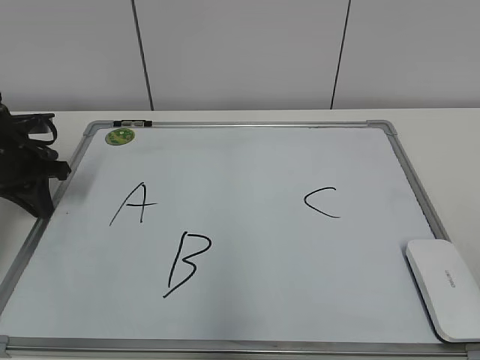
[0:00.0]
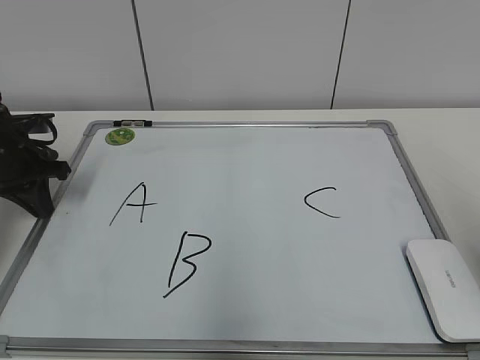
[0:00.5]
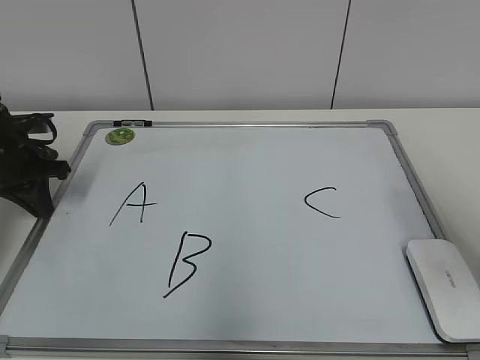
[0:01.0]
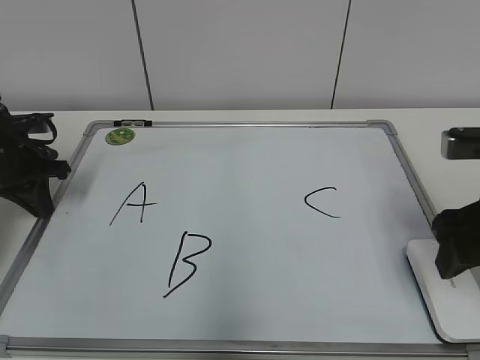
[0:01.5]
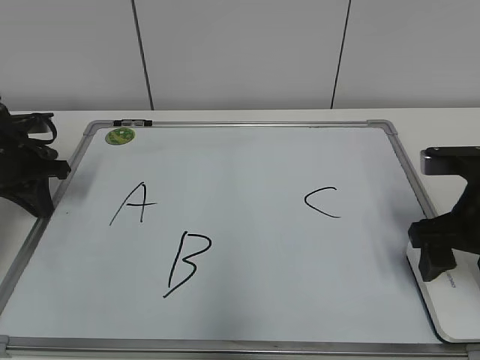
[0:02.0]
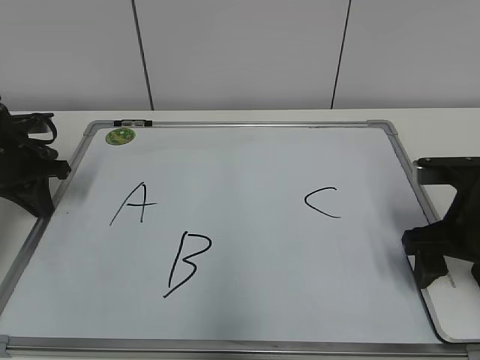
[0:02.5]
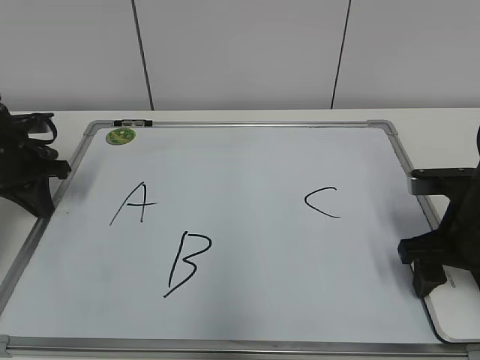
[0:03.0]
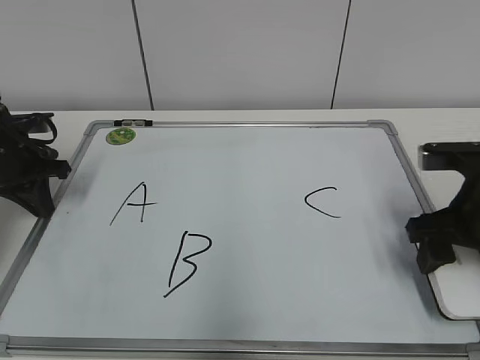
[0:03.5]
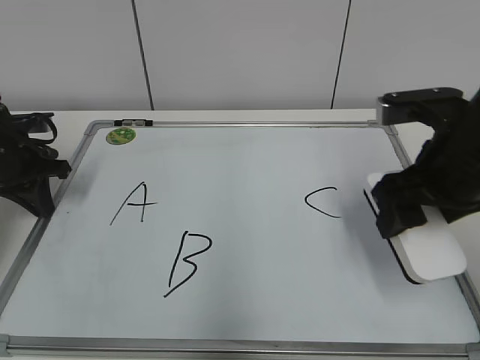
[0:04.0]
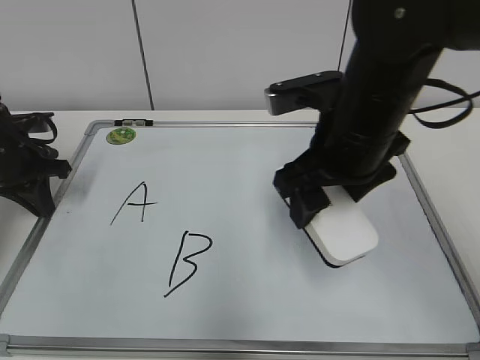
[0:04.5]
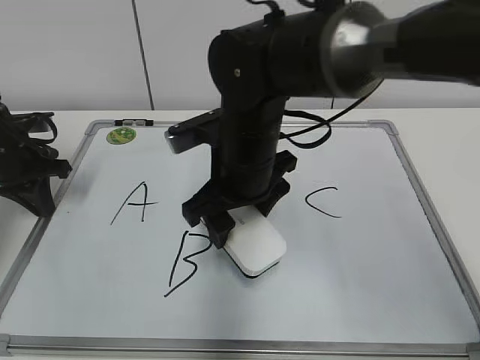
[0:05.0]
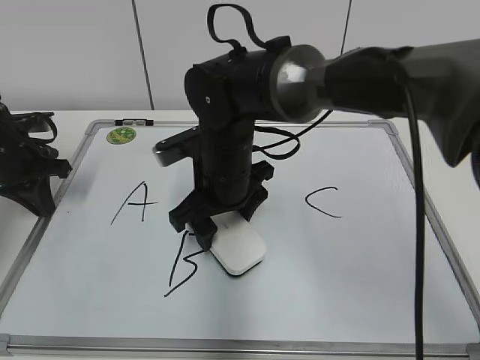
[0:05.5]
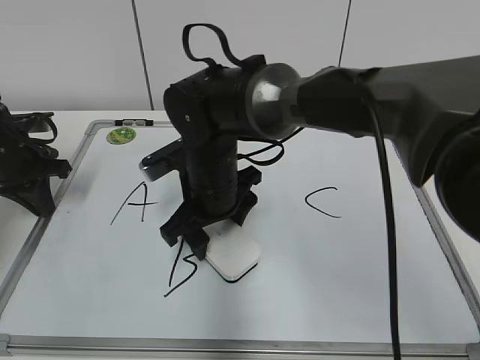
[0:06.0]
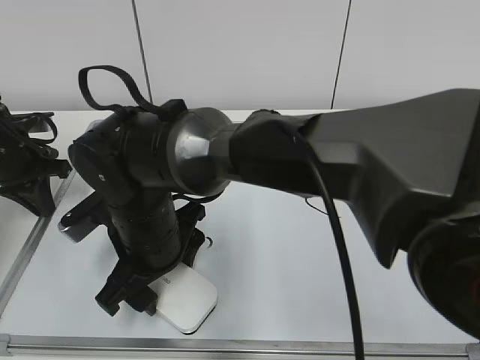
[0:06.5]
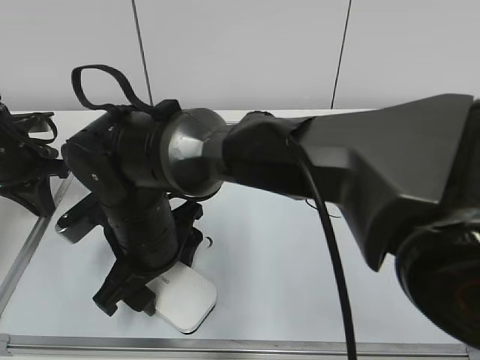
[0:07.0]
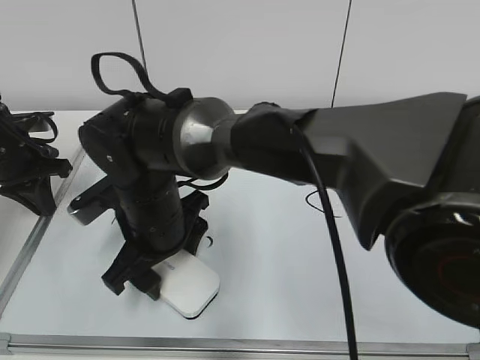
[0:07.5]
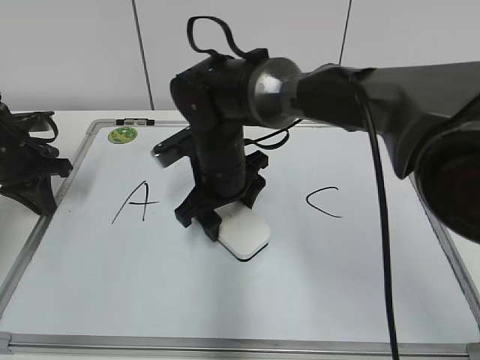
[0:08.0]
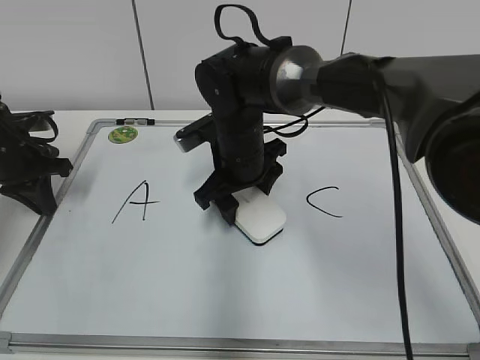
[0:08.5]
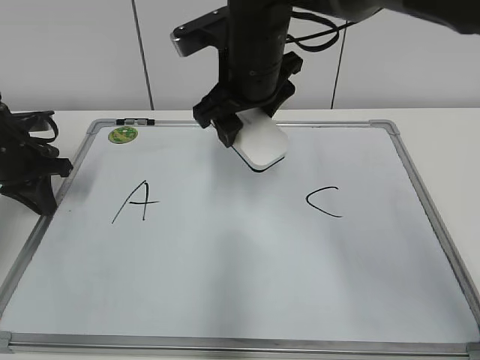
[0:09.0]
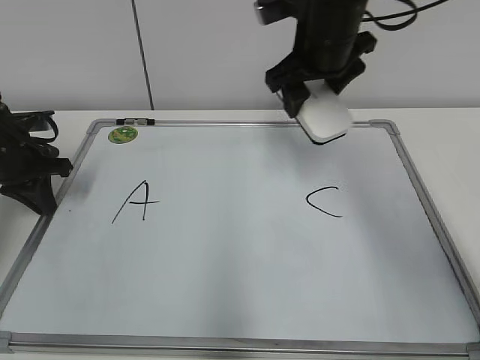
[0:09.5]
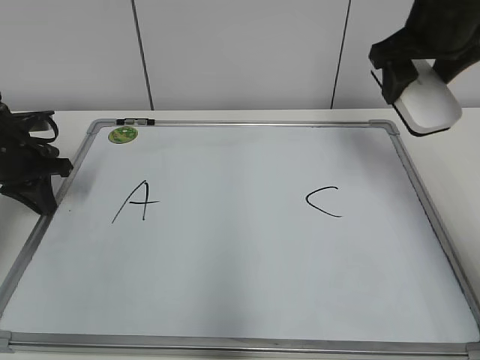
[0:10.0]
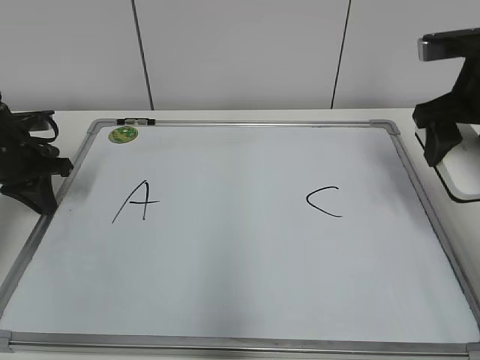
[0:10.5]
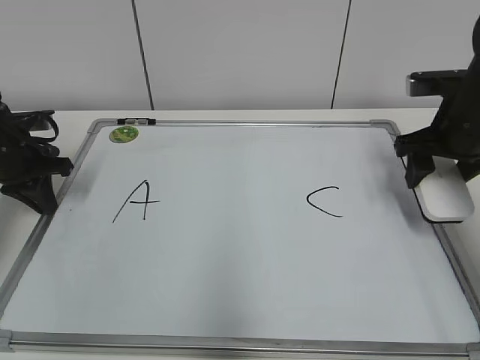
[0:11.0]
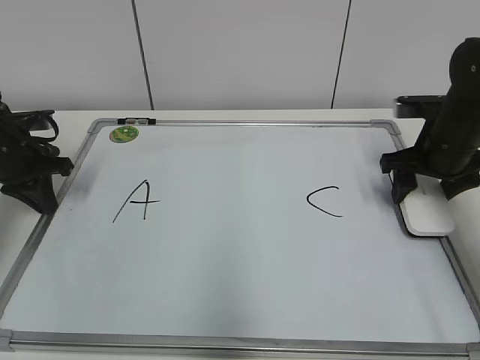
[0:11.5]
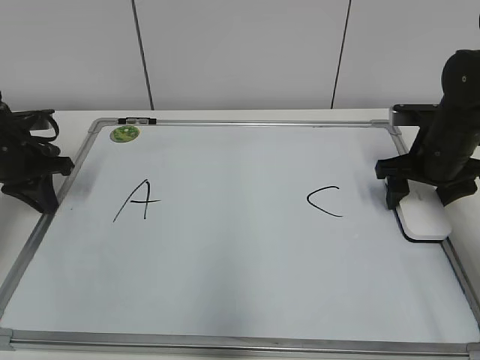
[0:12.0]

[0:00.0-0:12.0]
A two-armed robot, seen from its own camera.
Task of the whole recording: pick up the eraser on the blackboard and erase the letter "B".
Step, 0:00.0 to 0:03.0: Grab the eraser with your right hand.
Step, 0:03.5 to 0:08.0: Erase the letter B with your right hand.
0:00.0 to 0:02.0: The right gripper shifts roughly 30 cm forward and downward.
0:02.0 to 0:04.0: The right gripper moves upward, approximately 5 cm.
0:04.0 to 0:06.0: The right gripper travels to the left by some 25 cm.
0:06.0 to 0:08.0: The right gripper travels backward and back again, about 5 cm each way.
0:08.0 to 0:10.0: The right gripper is displaced to the right and upward by approximately 30 cm.
0:10.0 to 0:12.0: The right gripper shifts approximately 15 cm downward.

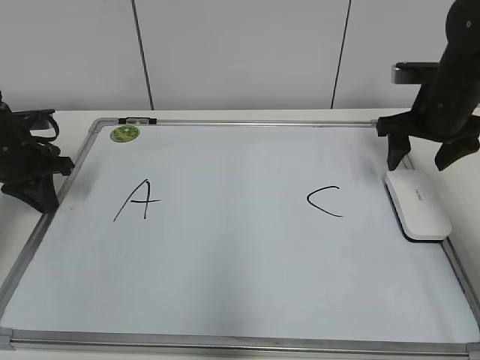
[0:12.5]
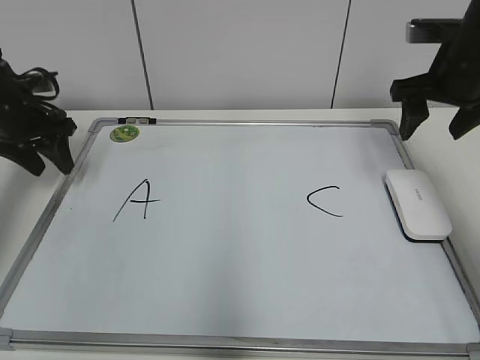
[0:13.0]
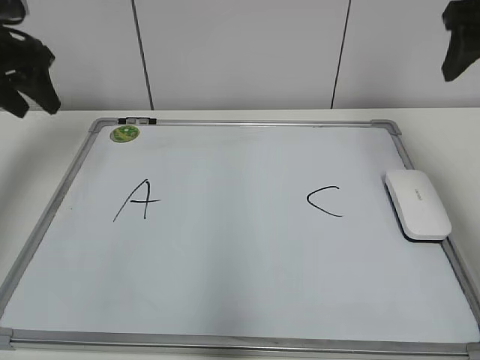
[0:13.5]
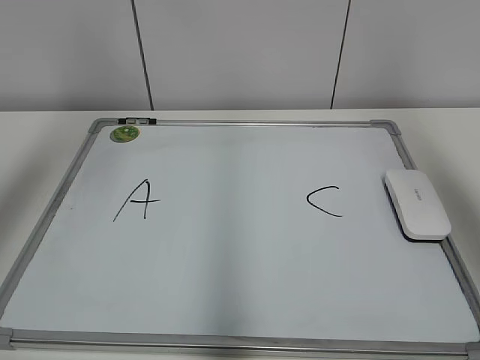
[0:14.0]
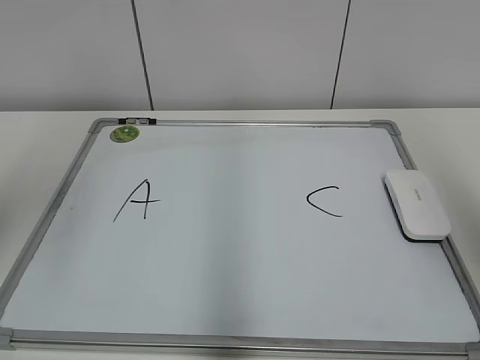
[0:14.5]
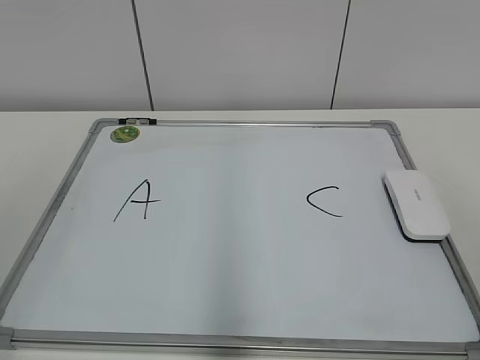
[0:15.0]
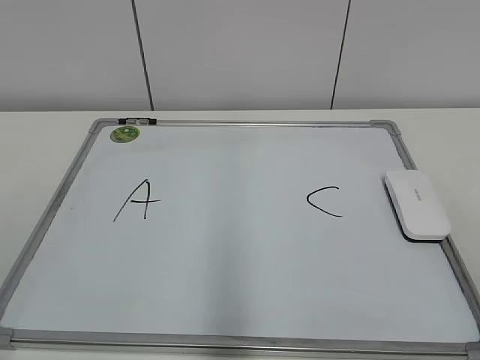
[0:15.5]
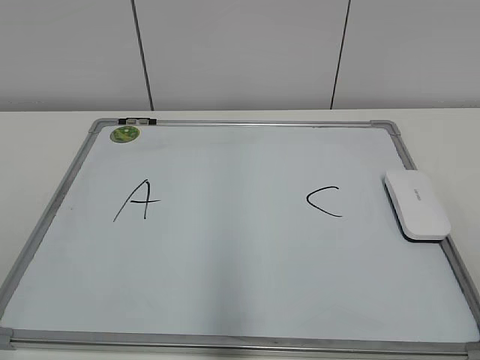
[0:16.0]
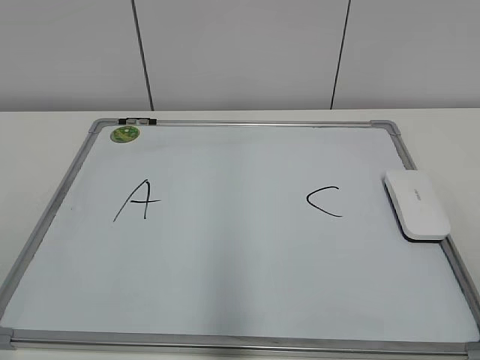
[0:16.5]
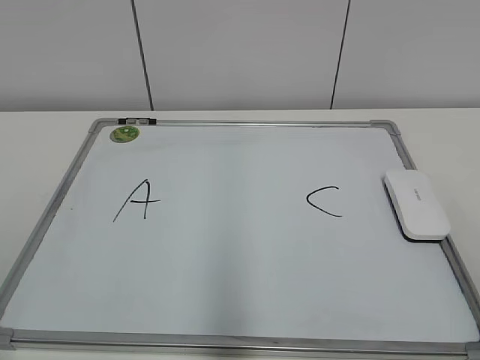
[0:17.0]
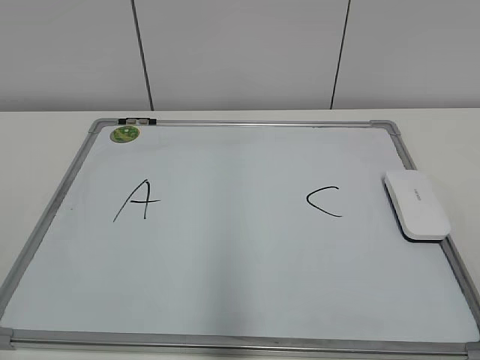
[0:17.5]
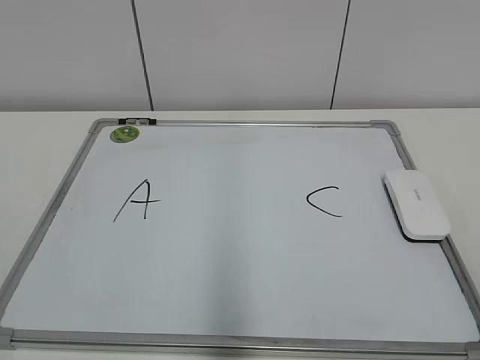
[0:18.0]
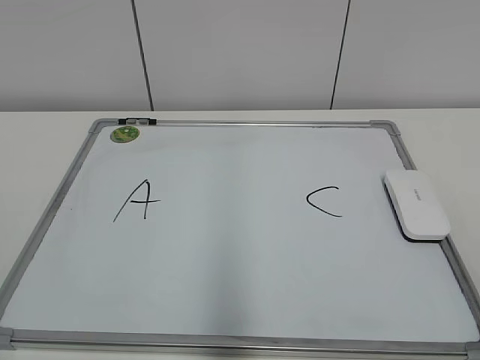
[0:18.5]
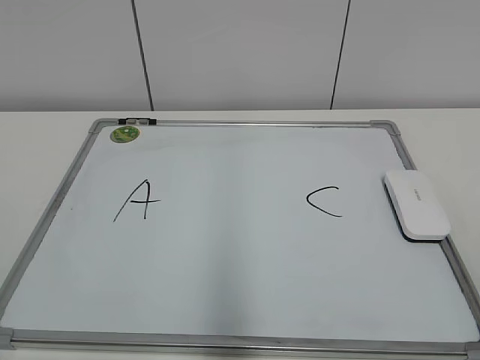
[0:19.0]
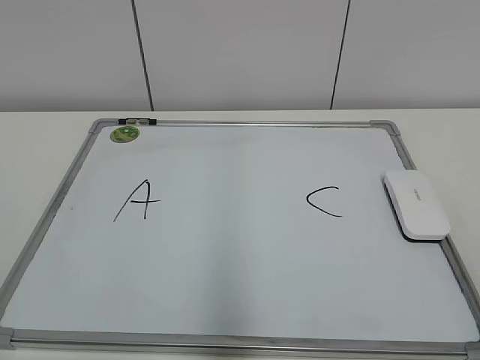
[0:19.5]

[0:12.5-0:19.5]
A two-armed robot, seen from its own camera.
Task of the whole recording: pick up the eraser on the blackboard and erase the letter "B".
0:12.5 to 0:14.5: The left gripper heads upward and backward, covering roughly 35 cm, and opens up, while the right gripper heads backward and upward, covering some 35 cm.
0:14.5 to 0:16.0: The left gripper shifts some 25 cm backward and downward; the right gripper travels downward and backward by about 20 cm.

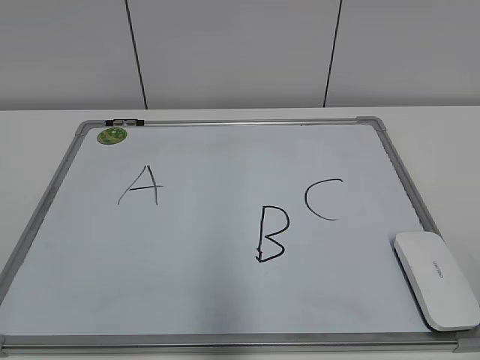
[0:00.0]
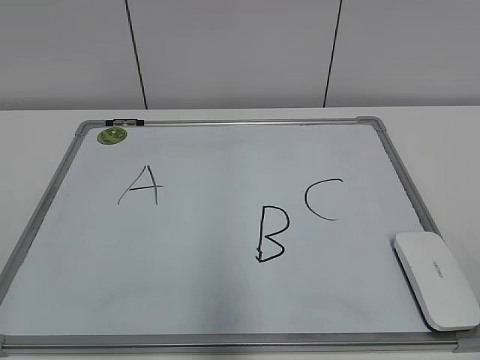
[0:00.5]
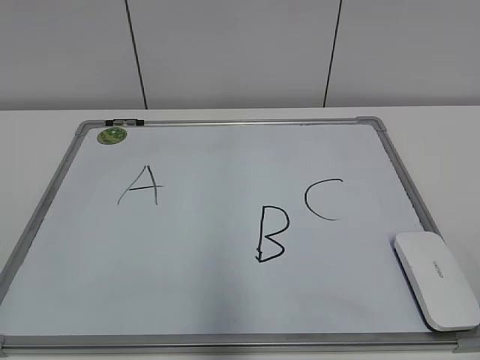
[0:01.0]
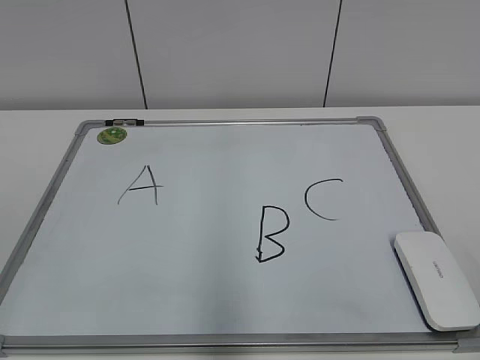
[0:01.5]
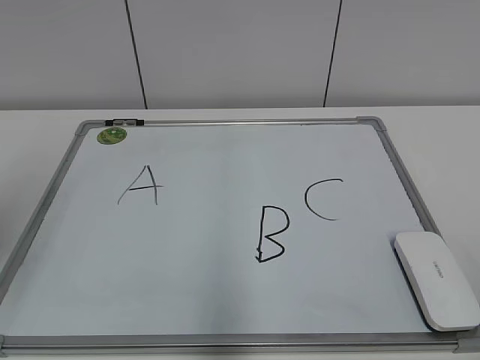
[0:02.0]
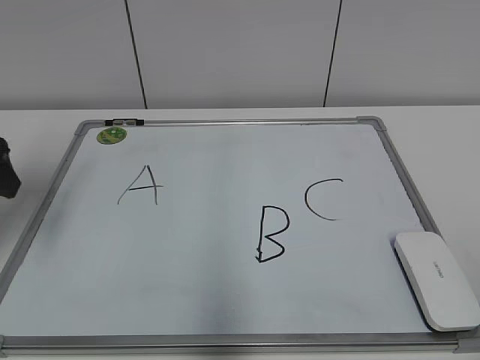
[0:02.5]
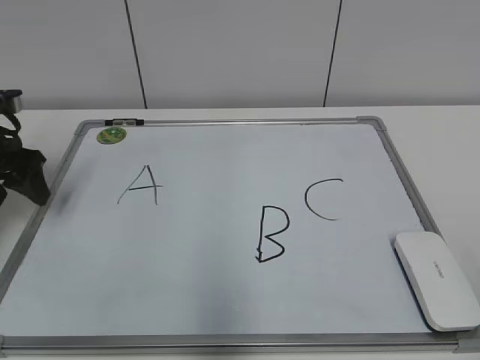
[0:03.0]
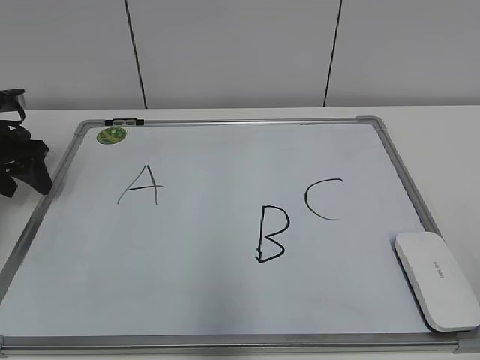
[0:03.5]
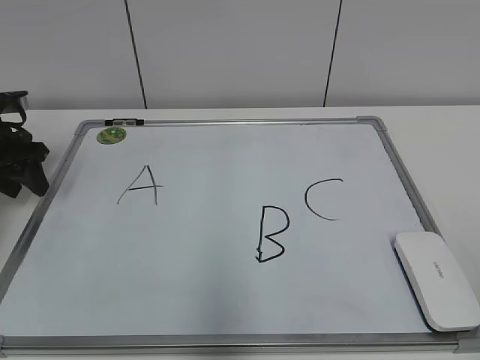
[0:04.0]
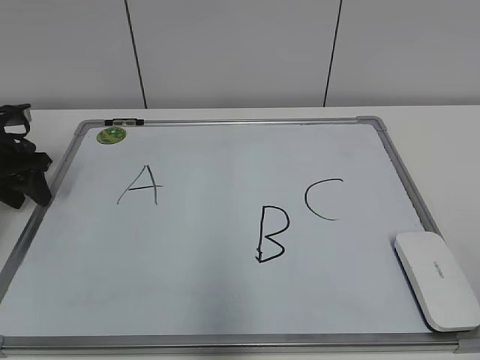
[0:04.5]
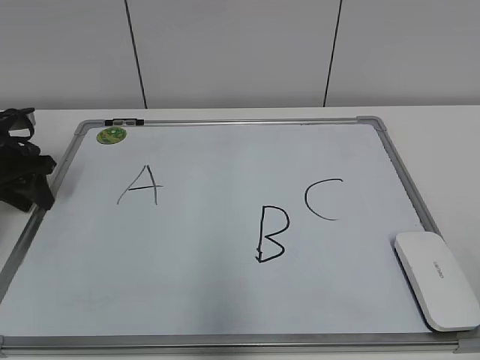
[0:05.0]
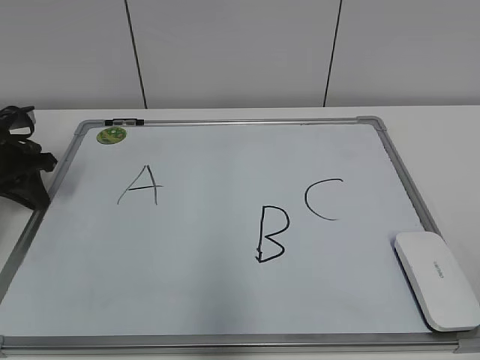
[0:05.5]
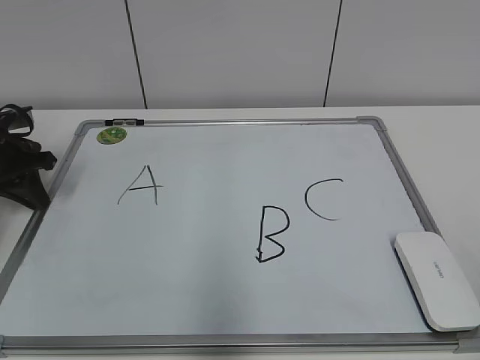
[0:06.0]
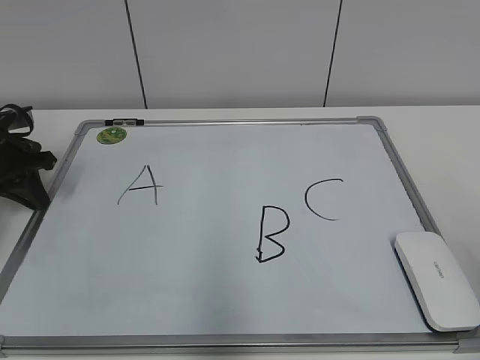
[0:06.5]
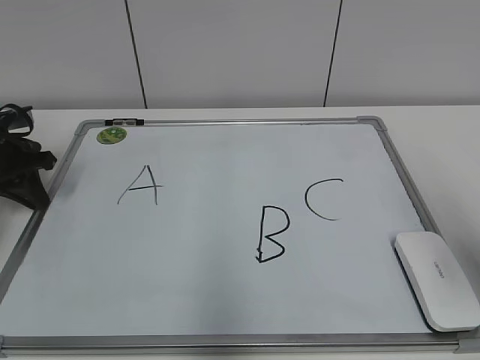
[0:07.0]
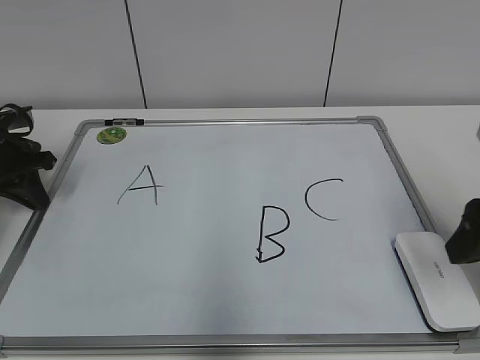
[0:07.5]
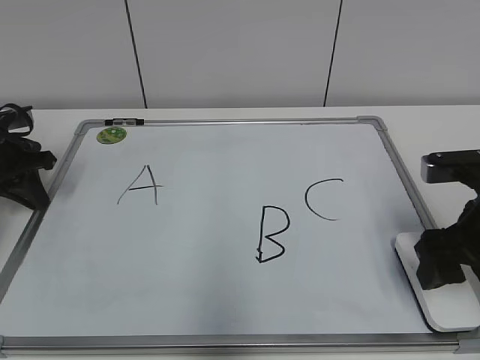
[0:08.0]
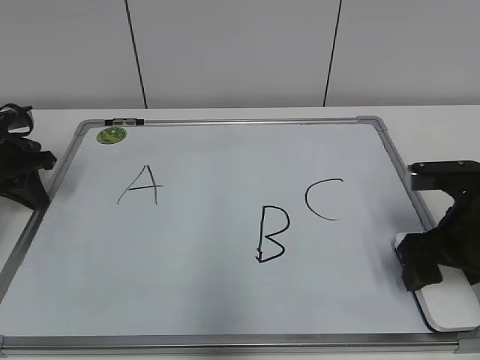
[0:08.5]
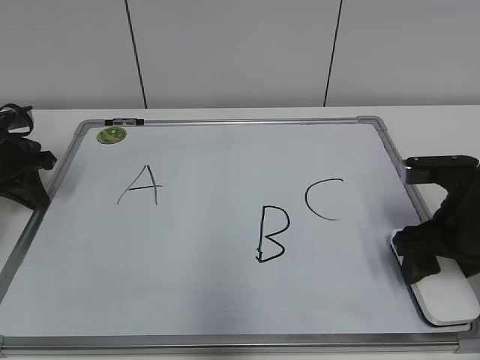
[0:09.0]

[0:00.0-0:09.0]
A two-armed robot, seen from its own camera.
Task of the whole recording: pick up the eraser on the blackboard and erase the letter "B".
Step, 0:00.0 to 0:05.0: Hold the drawing board steady with your left hand.
Step, 0:05.5 to 0:08.5: Grab the eraser with your right hand.
0:02.0 to 0:04.5: The left gripper is displaced forward and downward by roughly 30 cm, and closes.
0:04.5 to 0:07.0: The left gripper closes, while the right gripper goes about 15 cm forward.
0:07.0 to 0:09.0: The right gripper shifts approximately 20 cm downward and forward.
